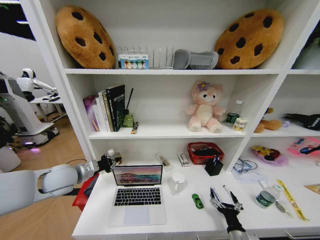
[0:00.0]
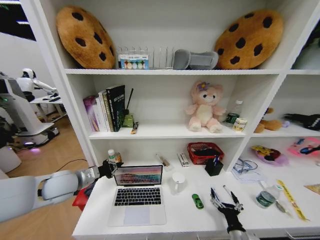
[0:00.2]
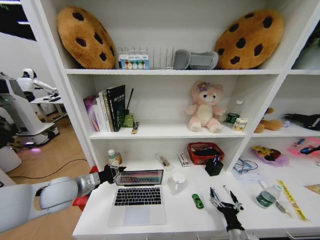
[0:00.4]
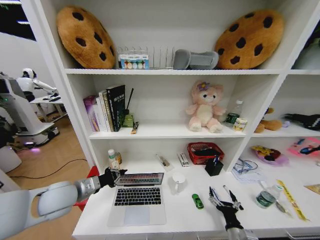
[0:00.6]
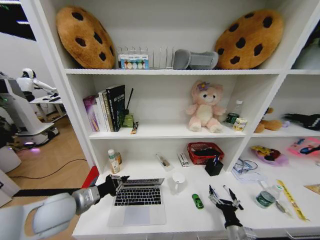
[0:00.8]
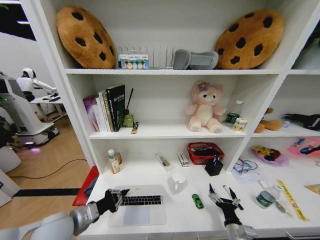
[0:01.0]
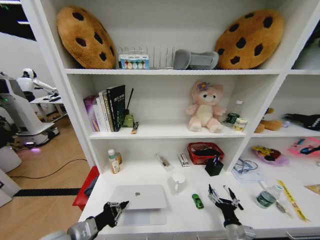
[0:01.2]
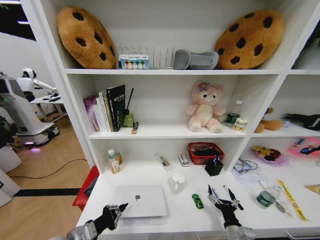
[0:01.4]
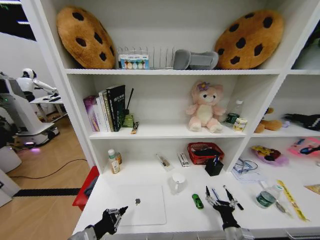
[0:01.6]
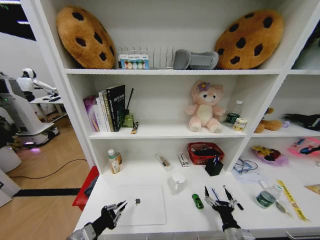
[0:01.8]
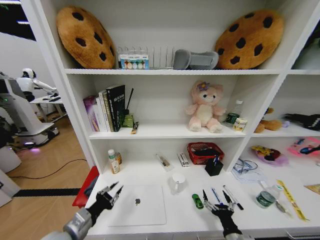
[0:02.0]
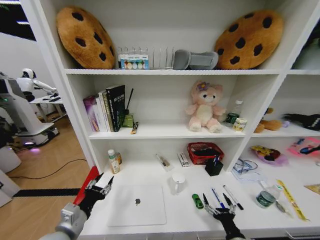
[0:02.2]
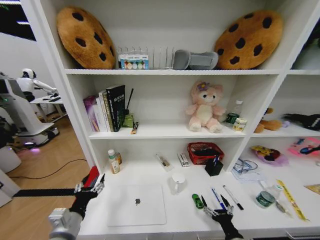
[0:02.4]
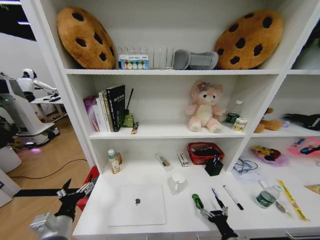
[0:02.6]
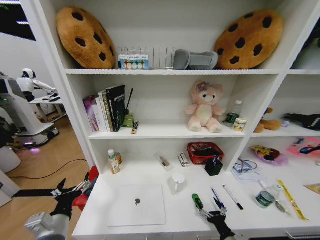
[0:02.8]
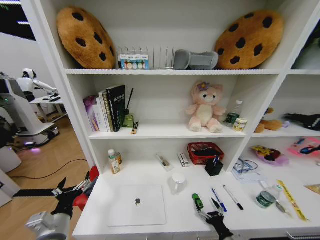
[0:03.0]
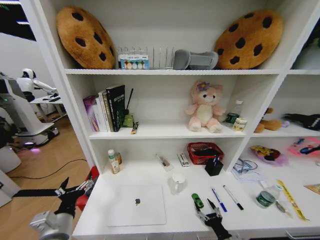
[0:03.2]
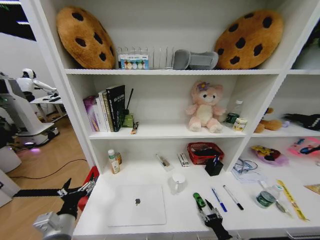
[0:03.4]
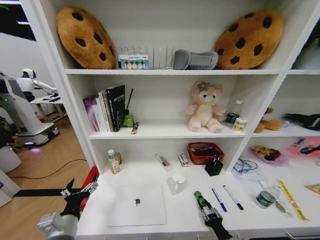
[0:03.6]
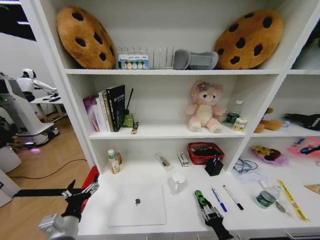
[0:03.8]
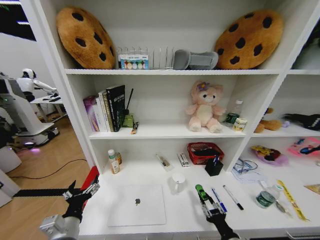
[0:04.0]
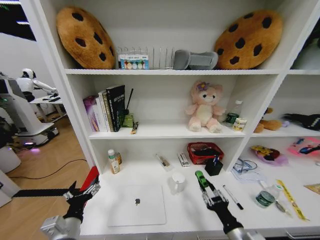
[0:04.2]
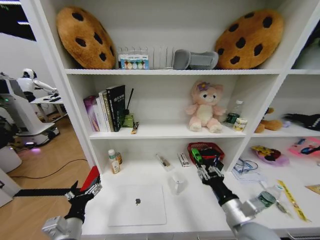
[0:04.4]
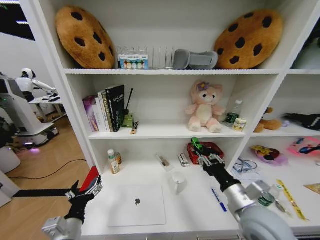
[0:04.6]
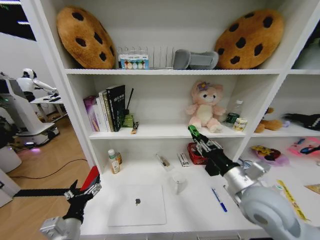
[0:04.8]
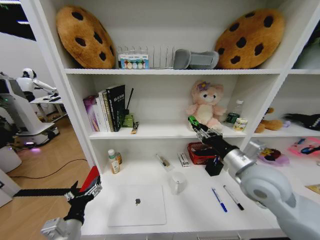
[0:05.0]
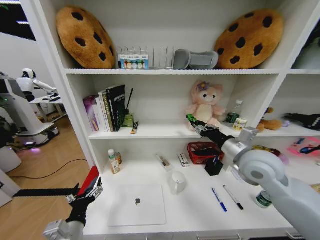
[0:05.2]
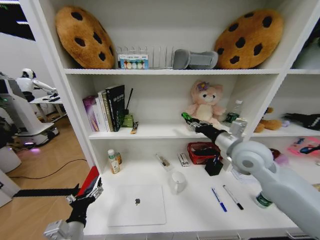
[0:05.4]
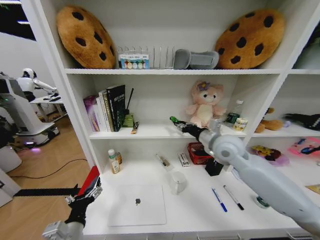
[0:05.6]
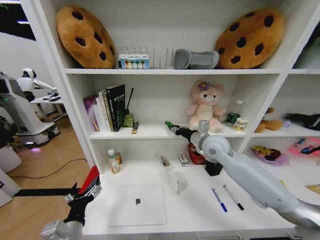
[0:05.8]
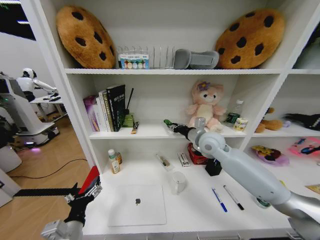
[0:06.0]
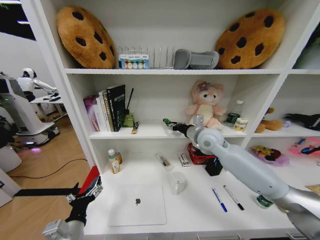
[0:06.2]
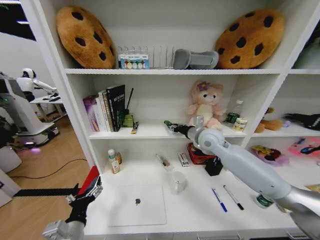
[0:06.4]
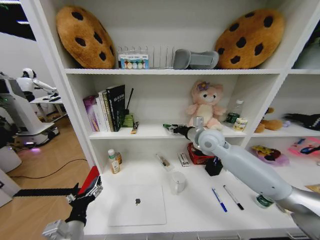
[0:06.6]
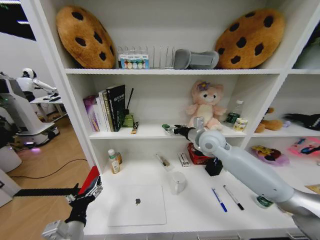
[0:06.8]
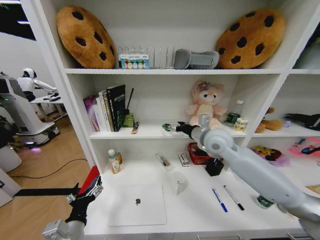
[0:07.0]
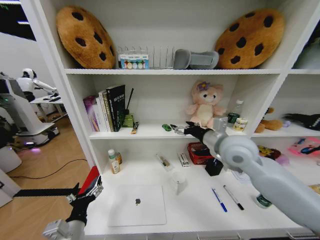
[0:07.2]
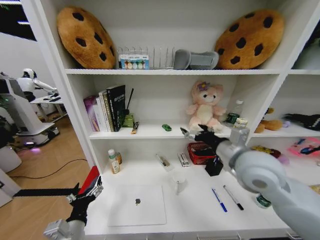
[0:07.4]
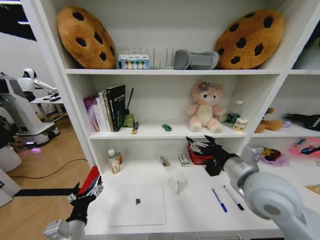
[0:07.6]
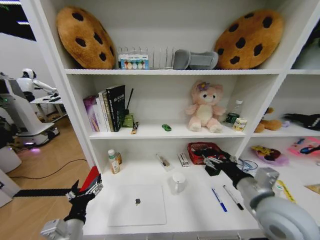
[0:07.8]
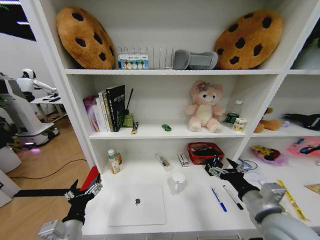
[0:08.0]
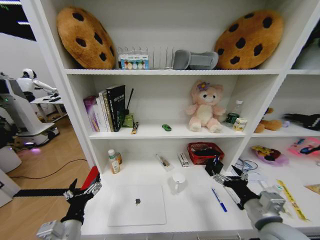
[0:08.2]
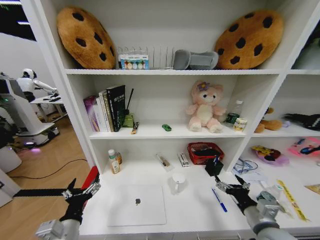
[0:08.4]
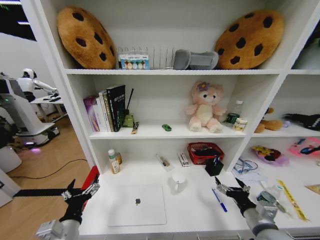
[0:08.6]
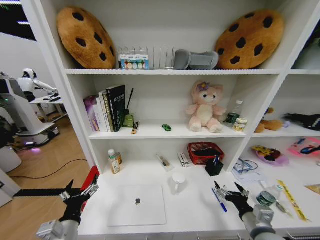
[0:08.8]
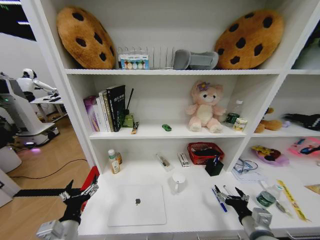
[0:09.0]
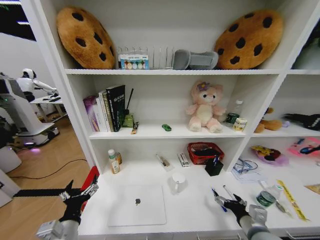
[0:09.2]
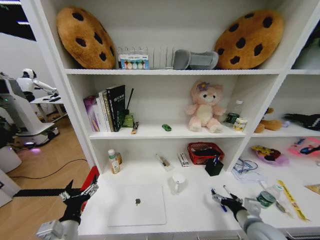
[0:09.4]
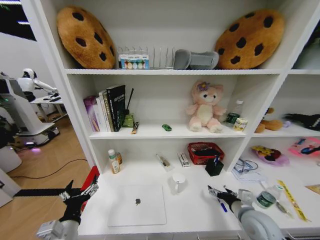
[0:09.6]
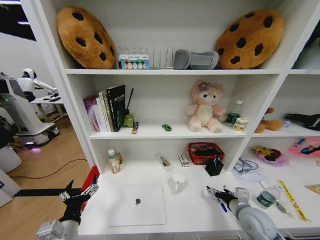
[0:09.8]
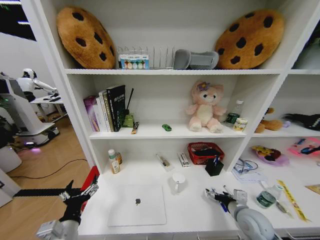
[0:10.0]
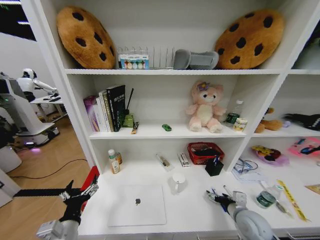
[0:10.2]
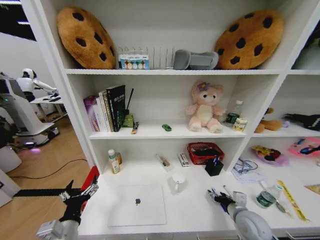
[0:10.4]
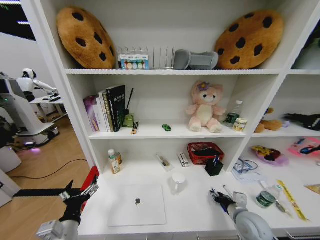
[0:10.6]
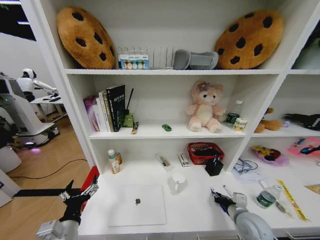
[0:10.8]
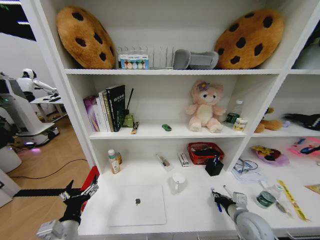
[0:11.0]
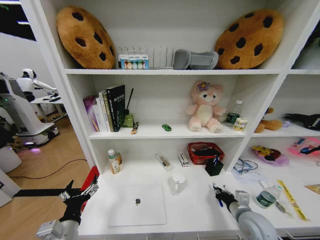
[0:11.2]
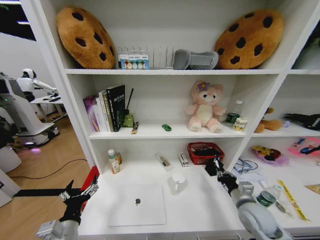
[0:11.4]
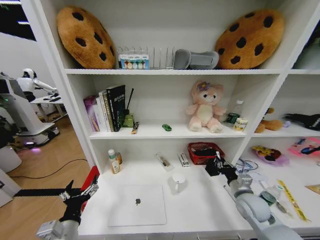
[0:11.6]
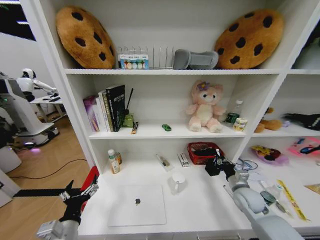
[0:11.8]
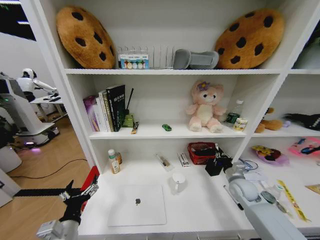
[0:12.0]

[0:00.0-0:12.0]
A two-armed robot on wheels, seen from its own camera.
Task of the whole recording: Organize the objects on the table.
0:00.0 to 0:01.6: The left gripper moves backward and downward, some 20 cm.
0:01.6 to 0:03.0: The left gripper opens.
0:03.0 to 0:04.4: The right gripper heads upward, covering approximately 20 cm, and closes its fingers.
0:04.4 to 0:06.0: The right gripper shifts roughly 30 cm forward and upward.
0:06.0 to 0:07.6: The right gripper moves backward, approximately 20 cm, and opens up.
0:07.6 to 0:09.0: The right gripper travels downward and backward by some 25 cm.
0:09.0 to 0:10.4: The right gripper shifts about 10 cm forward.
0:10.4 to 0:12.0: The right gripper shifts some 15 cm forward, and closes.

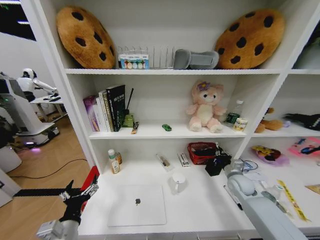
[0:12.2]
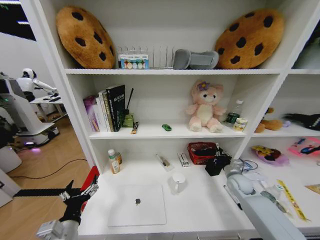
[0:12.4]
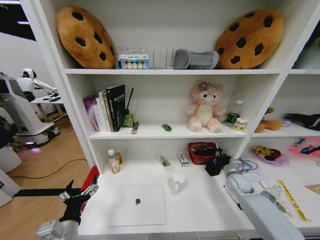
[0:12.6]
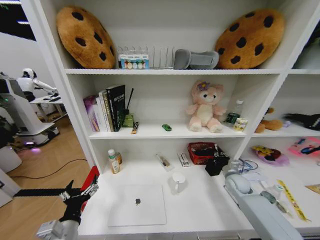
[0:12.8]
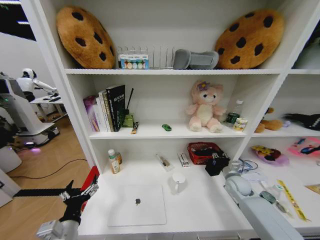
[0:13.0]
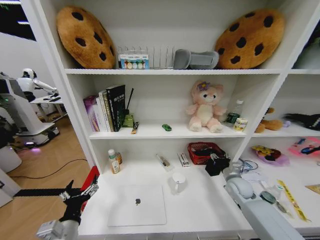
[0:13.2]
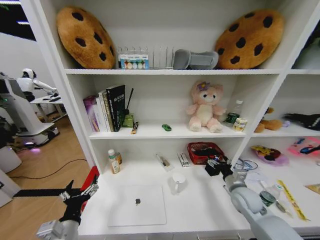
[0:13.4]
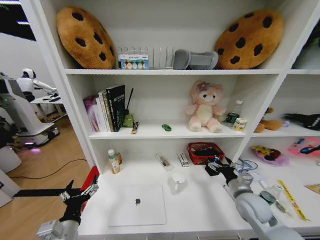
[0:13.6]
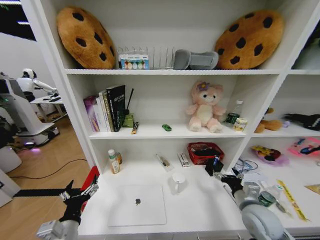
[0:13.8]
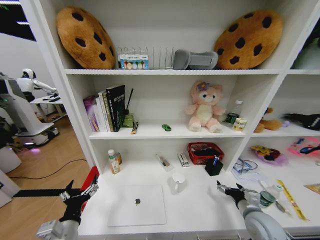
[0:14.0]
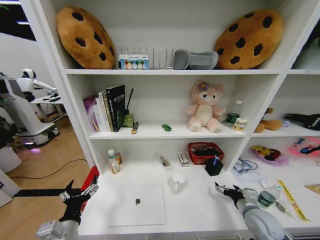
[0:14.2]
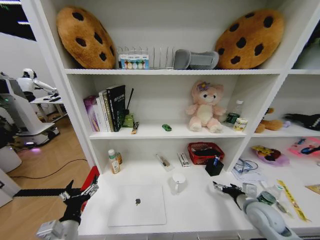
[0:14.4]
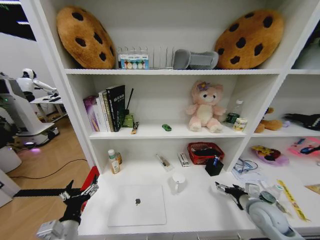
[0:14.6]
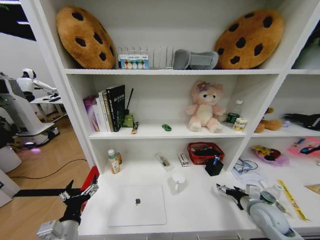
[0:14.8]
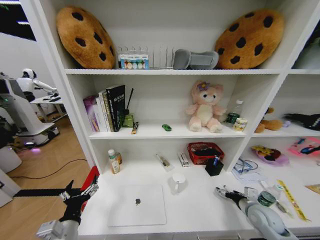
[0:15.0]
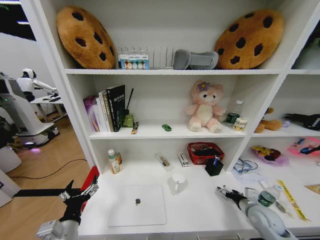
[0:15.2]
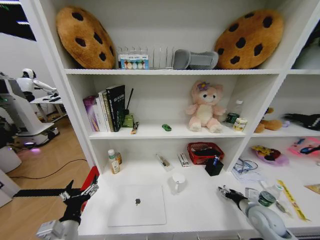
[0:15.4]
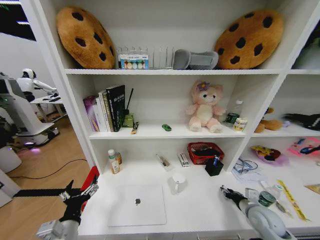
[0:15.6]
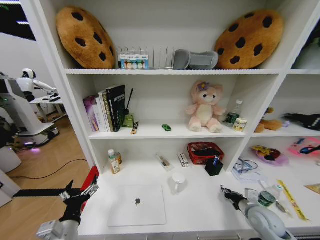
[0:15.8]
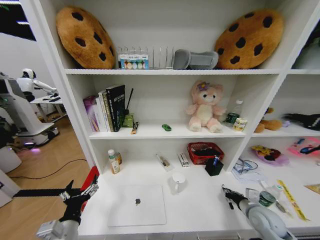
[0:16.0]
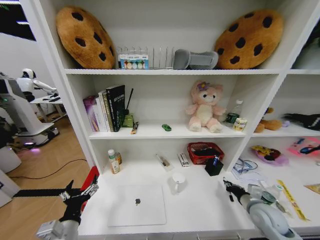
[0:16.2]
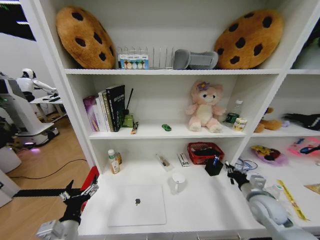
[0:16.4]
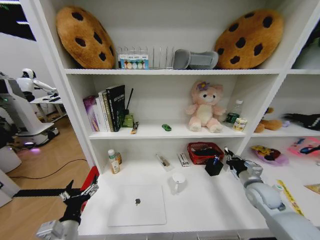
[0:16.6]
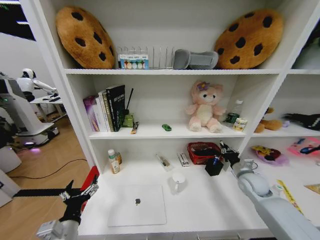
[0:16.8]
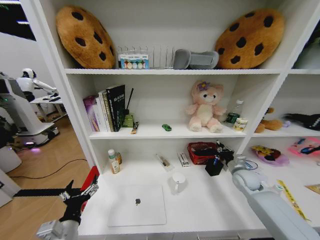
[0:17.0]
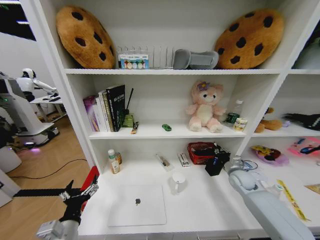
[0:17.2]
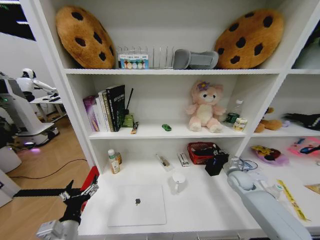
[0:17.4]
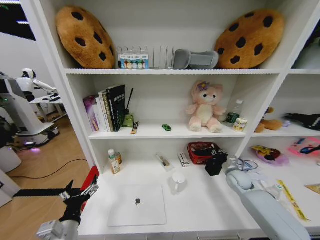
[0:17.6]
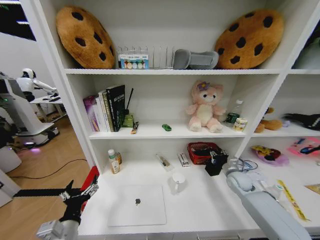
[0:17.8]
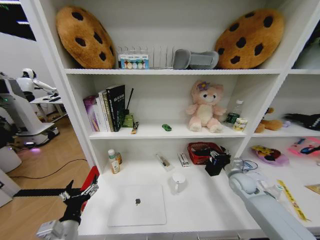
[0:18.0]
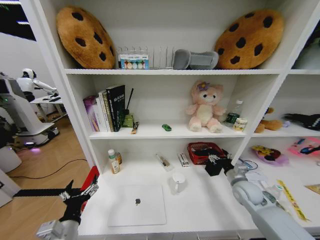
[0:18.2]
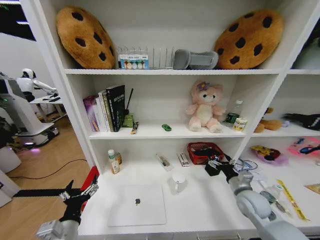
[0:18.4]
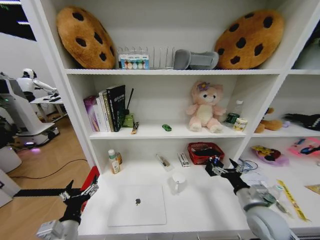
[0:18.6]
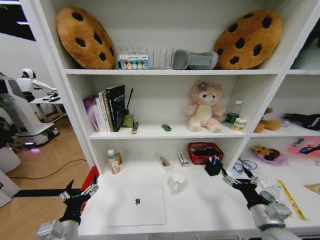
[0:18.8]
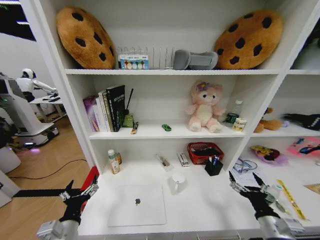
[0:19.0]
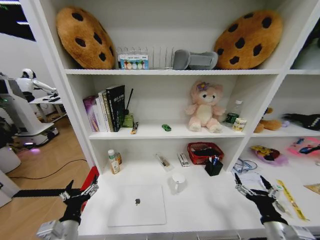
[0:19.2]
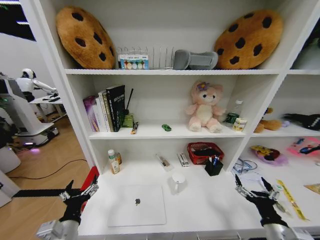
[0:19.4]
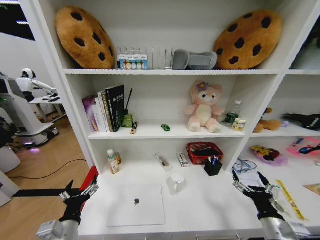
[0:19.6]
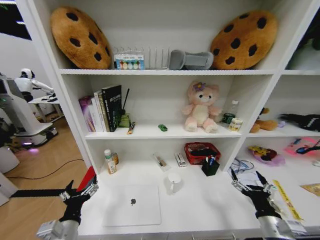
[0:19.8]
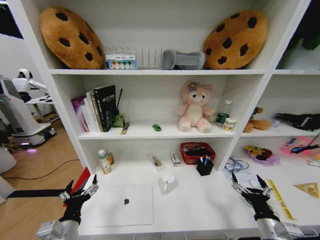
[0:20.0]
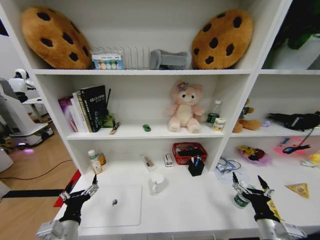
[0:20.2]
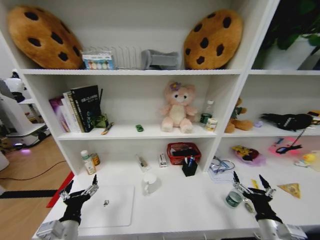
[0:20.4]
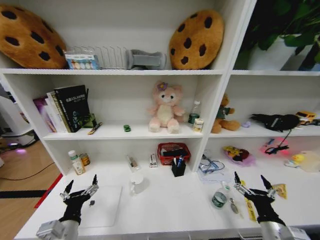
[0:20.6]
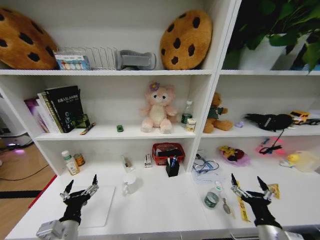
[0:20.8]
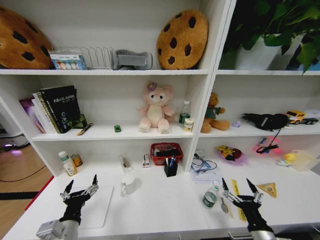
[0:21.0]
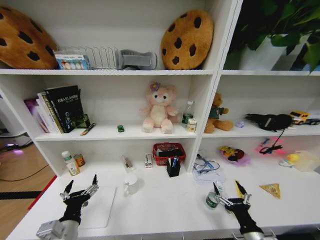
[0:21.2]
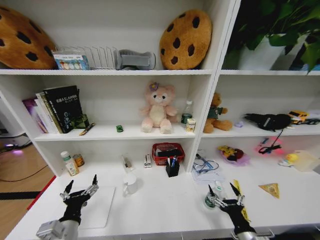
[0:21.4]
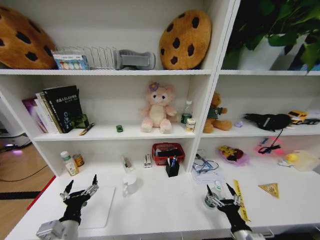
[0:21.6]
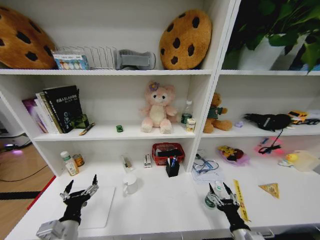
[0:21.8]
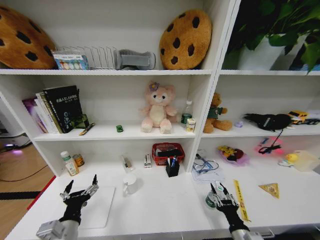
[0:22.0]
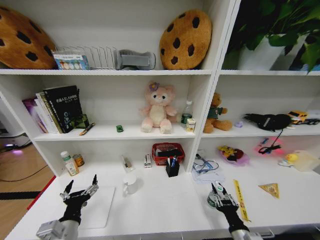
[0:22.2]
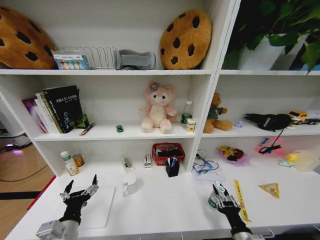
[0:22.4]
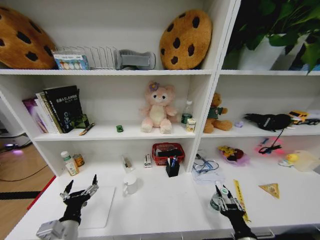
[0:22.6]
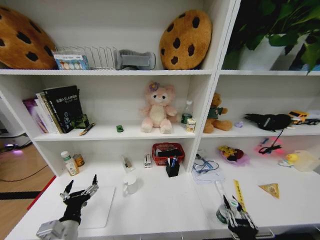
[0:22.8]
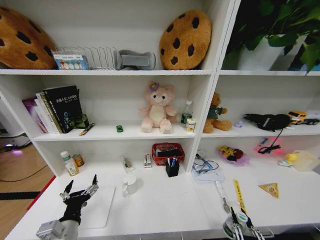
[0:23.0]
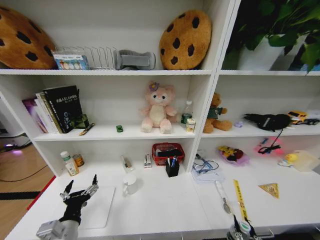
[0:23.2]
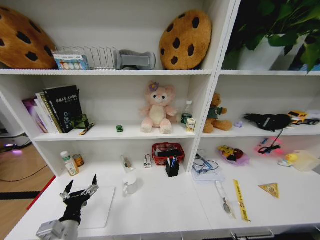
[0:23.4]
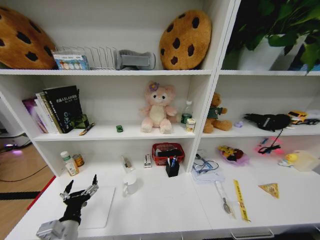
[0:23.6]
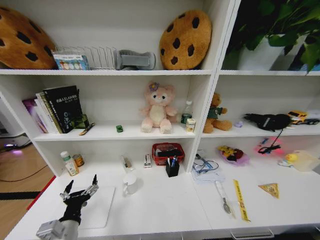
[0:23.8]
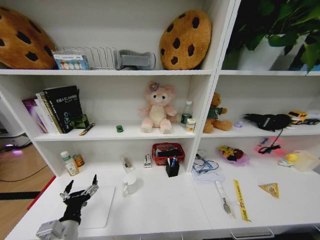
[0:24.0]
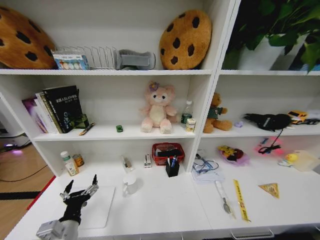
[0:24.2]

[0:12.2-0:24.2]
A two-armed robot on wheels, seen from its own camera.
Task of the whole recording: Organize the objects on the table.
0:12.2 to 0:13.8: The right gripper travels backward by some 15 cm, and opens up.
0:13.8 to 0:15.2: The right gripper goes roughly 10 cm to the right and downward.
0:15.2 to 0:16.6: The right gripper shifts some 10 cm upward and forward, and closes up.
0:16.6 to 0:18.2: The right gripper travels forward and back again, about 10 cm each way, and opens up.
0:18.2 to 0:19.8: The right gripper travels backward by some 20 cm.
0:19.8 to 0:21.2: The right gripper ends up some 5 cm from where it was.
0:21.2 to 0:22.6: The right gripper closes.
0:22.6 to 0:24.2: The right gripper moves downward and backward, about 30 cm.
